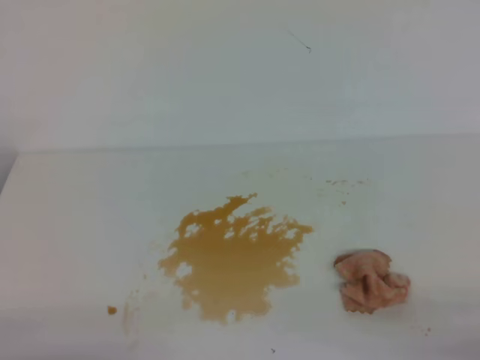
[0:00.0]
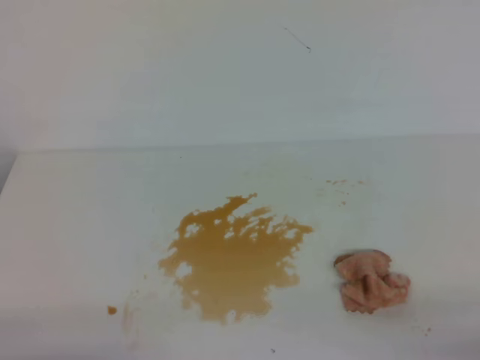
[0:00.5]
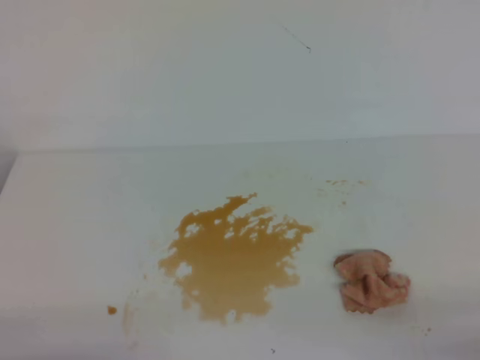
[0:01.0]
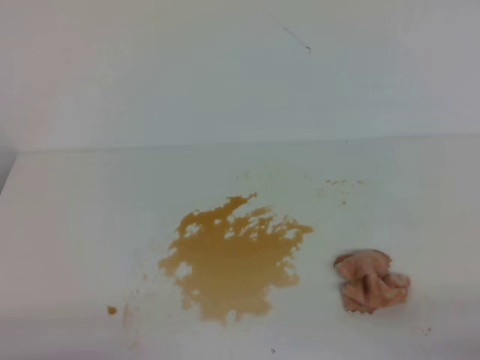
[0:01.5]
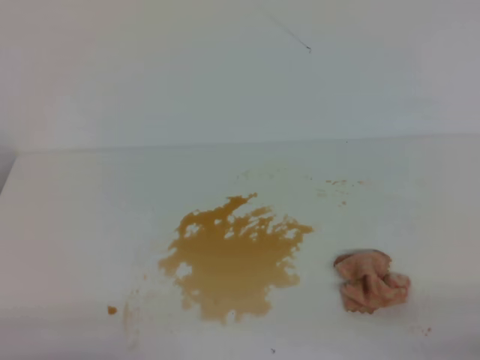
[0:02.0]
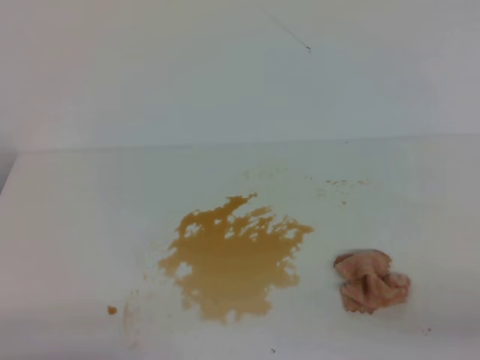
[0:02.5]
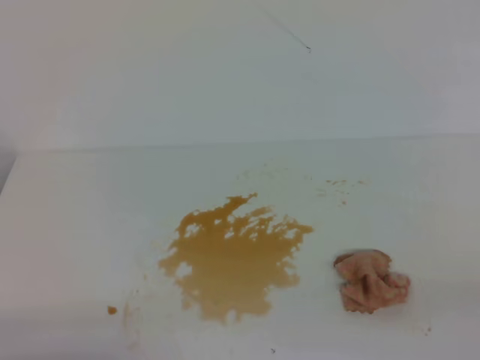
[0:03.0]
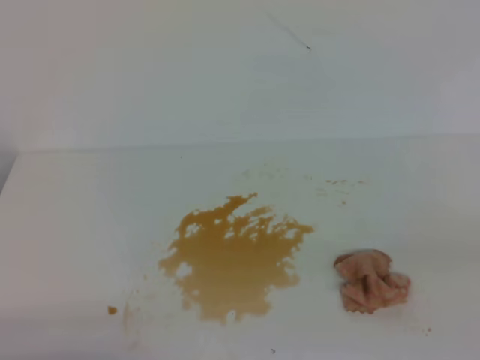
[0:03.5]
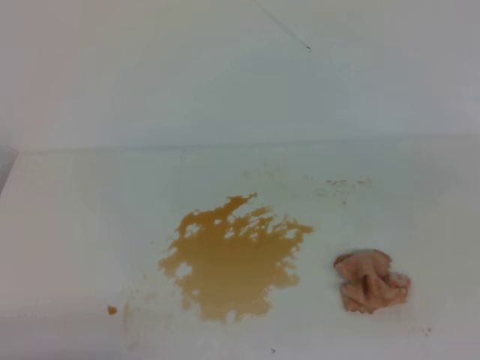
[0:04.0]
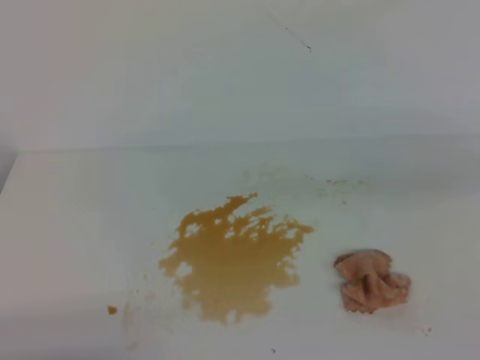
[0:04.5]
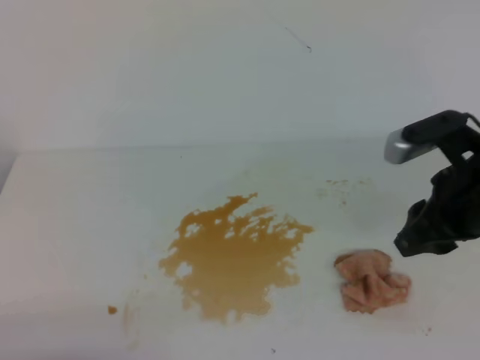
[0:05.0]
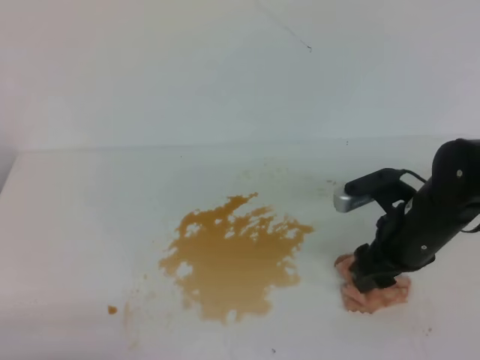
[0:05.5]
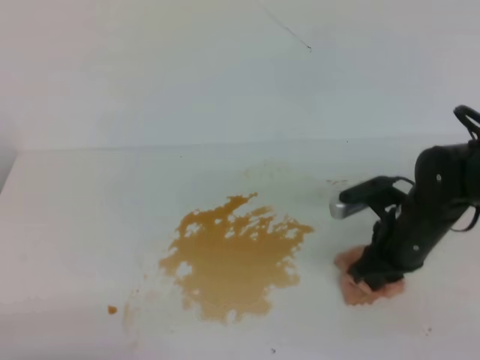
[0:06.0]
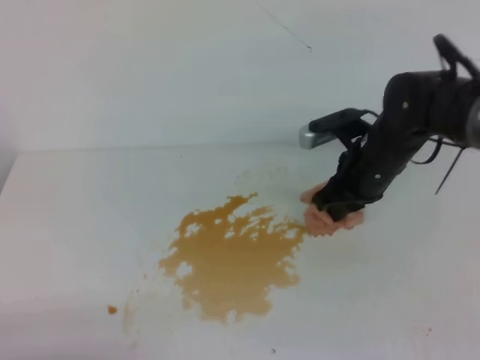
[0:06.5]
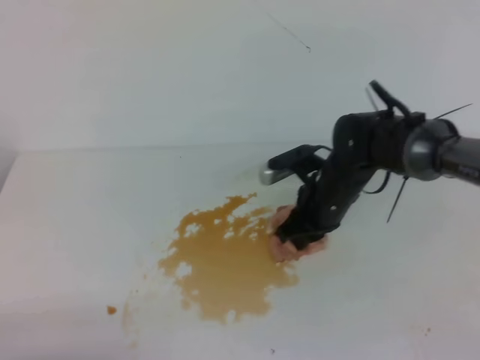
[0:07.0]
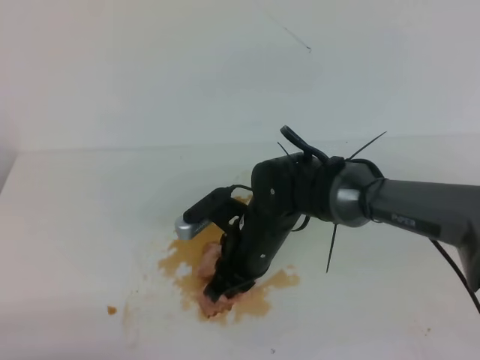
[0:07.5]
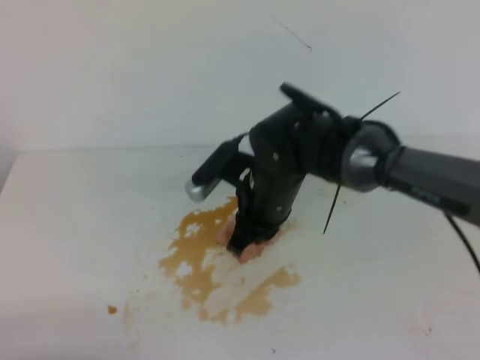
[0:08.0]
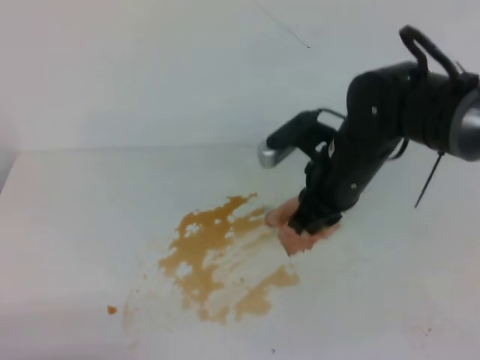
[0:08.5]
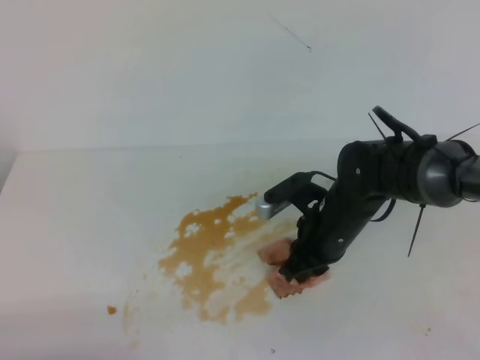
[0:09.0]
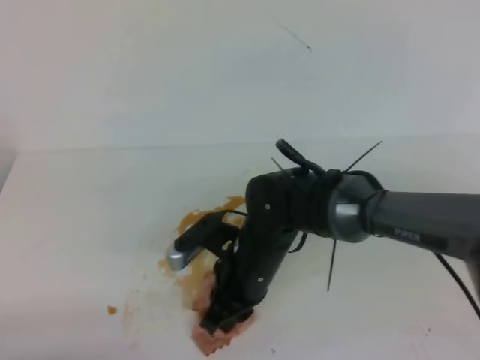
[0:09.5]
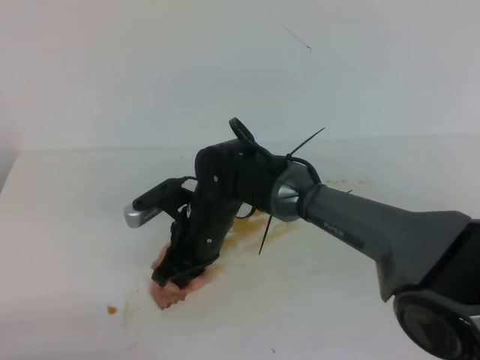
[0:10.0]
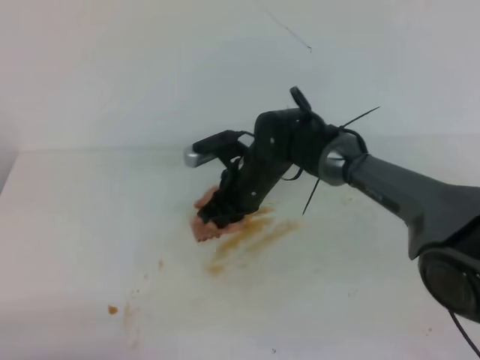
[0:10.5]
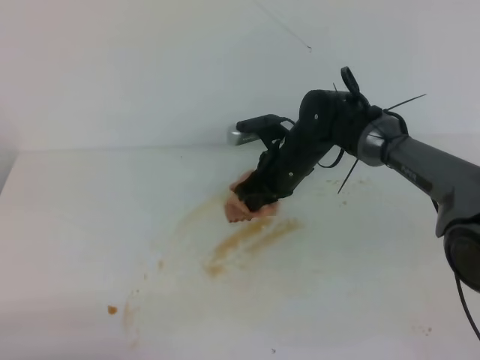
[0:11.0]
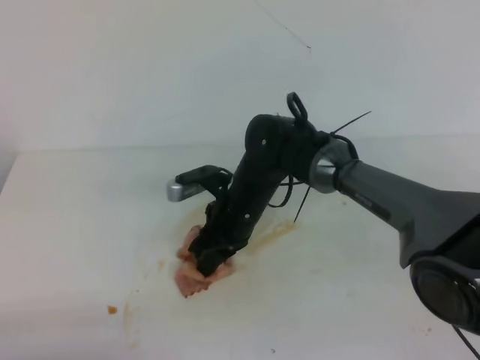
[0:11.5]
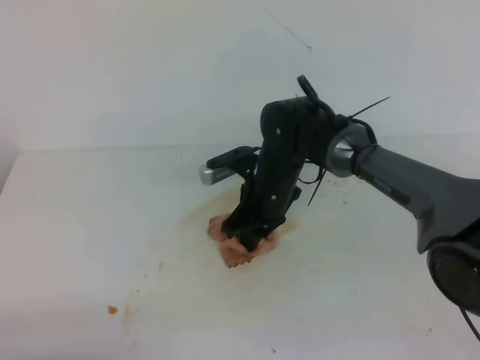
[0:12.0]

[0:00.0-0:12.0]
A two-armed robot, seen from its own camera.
0:00.0 to 0:02.0: Both grippers stay put.
0:04.0 to 0:06.0: The right gripper heads downward, forward and to the left, covering approximately 30 cm, and opens, then closes again.
0:06.0 to 0:08.0: The right gripper shifts about 15 cm to the left.
0:08.0 to 0:10.0: The right gripper goes roughly 10 cm downward and to the left.
0:10.0 to 0:12.0: The right gripper swings left and right, roughly 10 cm each way, with 2 reversals.

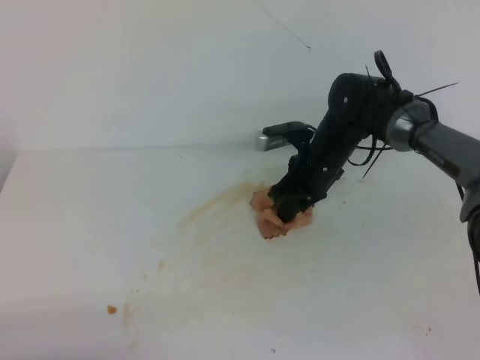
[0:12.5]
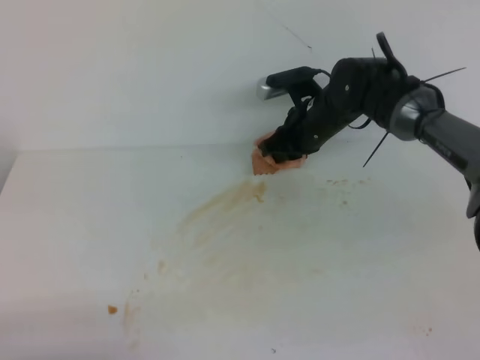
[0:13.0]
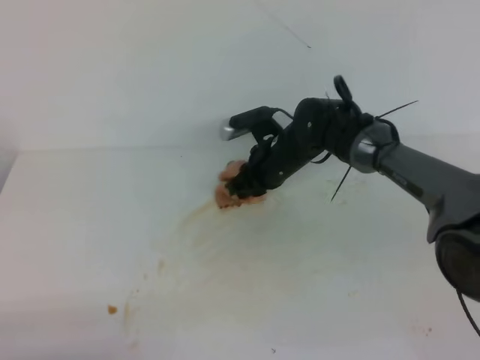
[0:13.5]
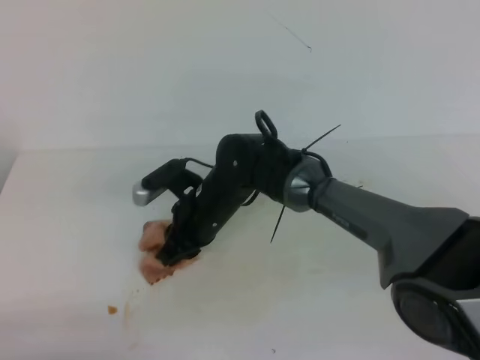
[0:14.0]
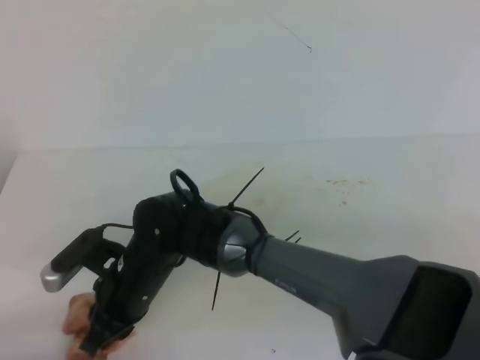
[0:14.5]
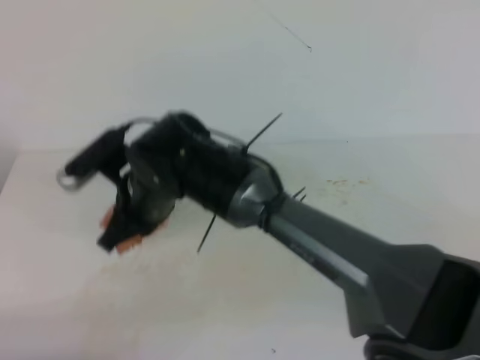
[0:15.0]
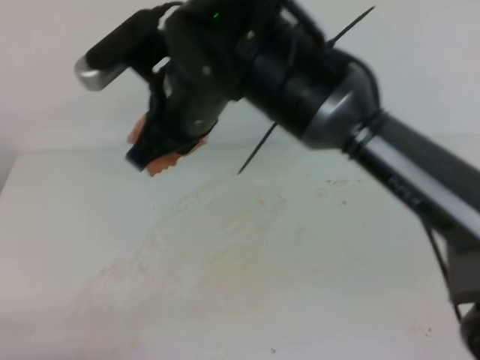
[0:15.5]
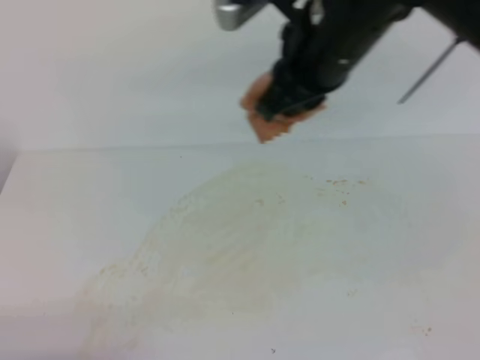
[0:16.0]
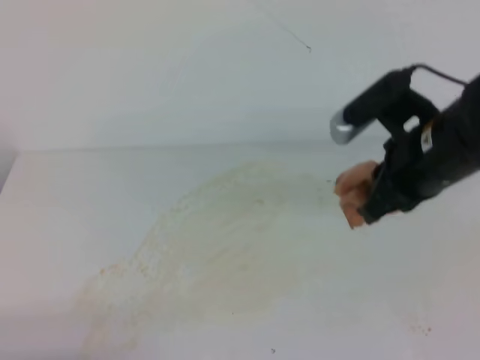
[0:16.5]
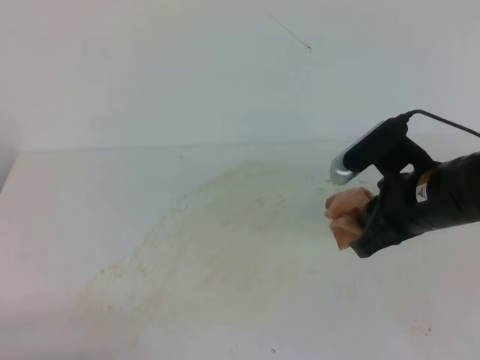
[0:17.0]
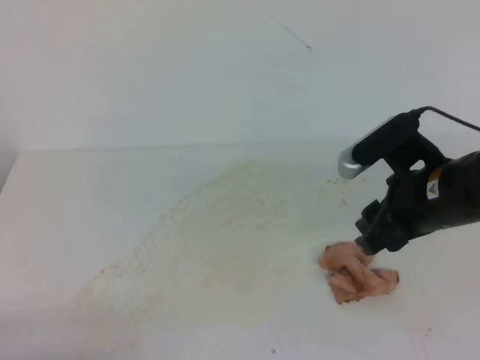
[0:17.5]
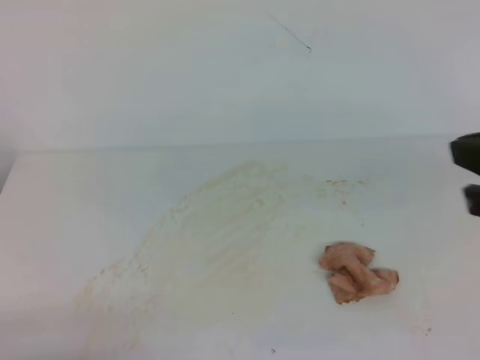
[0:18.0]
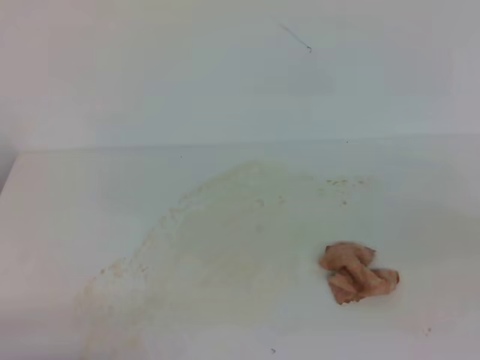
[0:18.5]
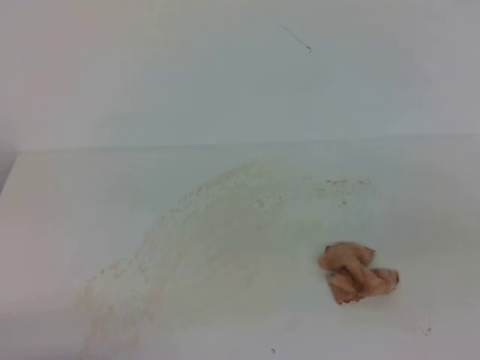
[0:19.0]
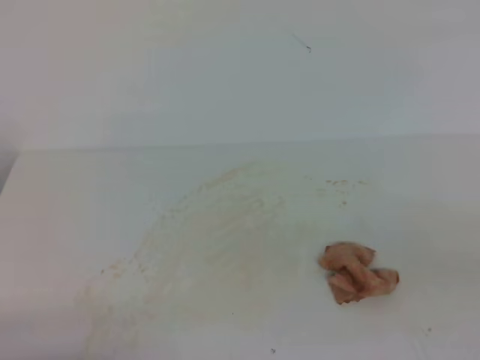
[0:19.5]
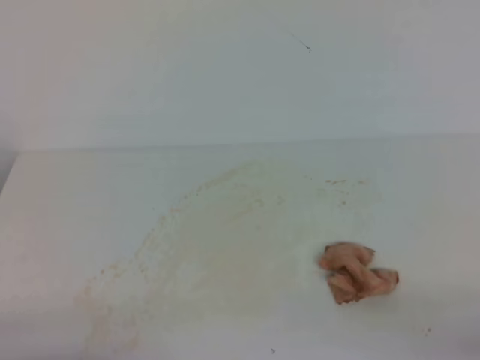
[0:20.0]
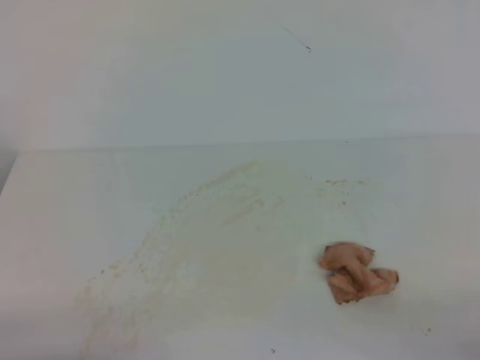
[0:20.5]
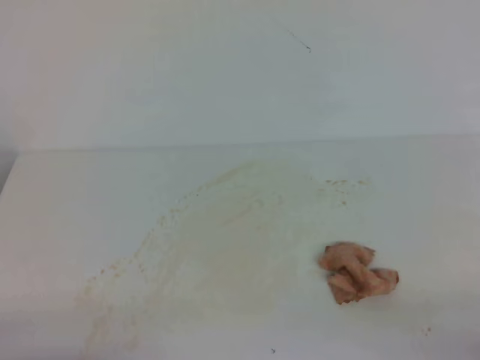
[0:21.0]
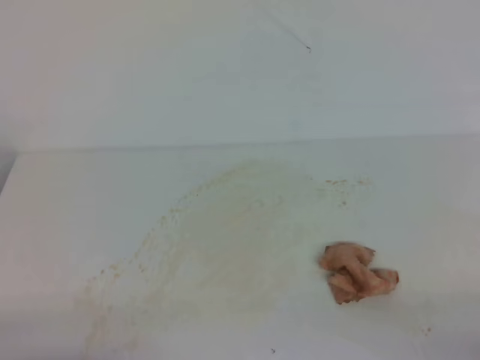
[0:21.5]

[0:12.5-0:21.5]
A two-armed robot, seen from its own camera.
0:12.5 to 0:14.5: The right gripper moves to the left and backward, some 25 cm.
0:14.5 to 0:17.0: The right gripper travels to the right by approximately 30 cm.
0:17.0 to 0:19.5: The right gripper goes approximately 25 cm backward and to the right, and closes its fingers.
